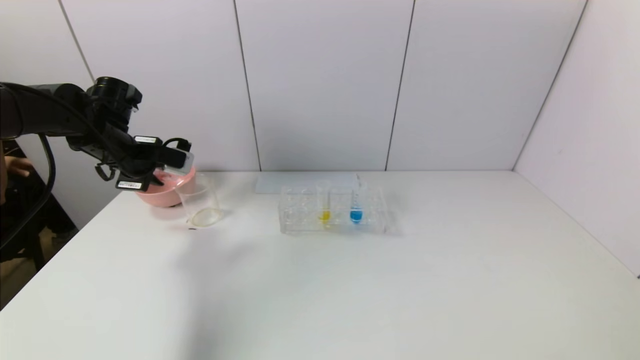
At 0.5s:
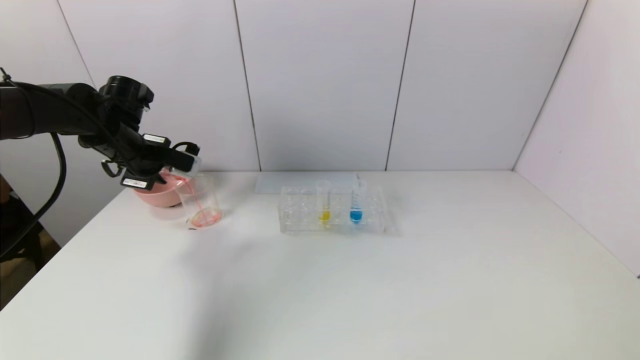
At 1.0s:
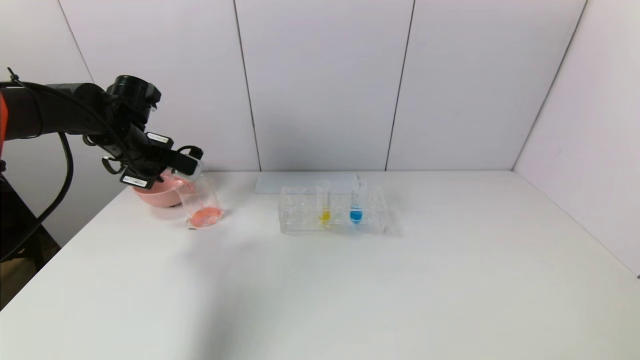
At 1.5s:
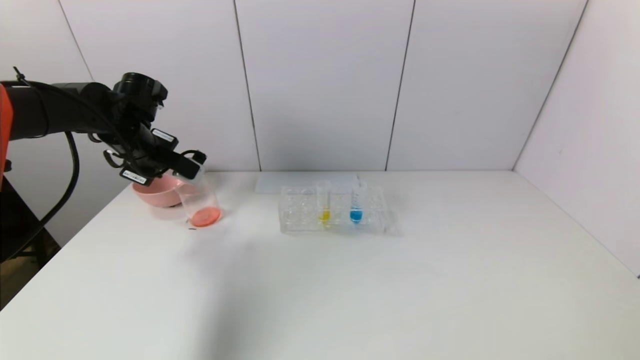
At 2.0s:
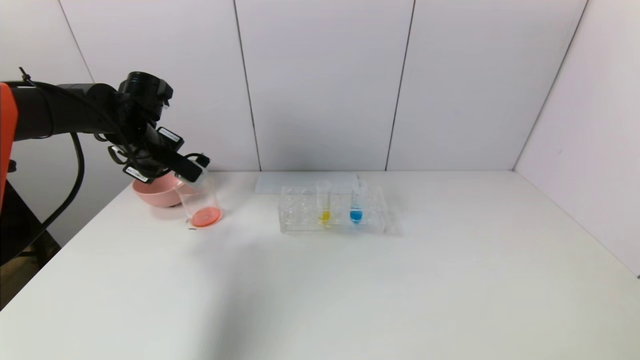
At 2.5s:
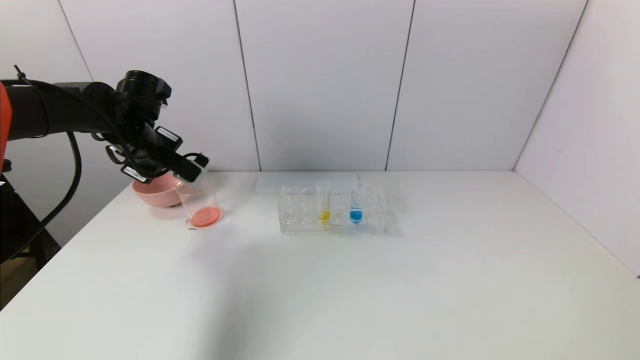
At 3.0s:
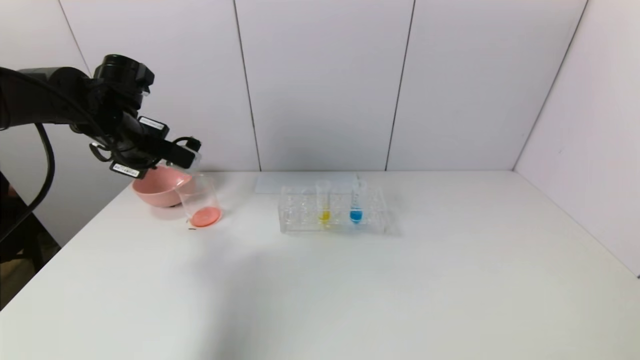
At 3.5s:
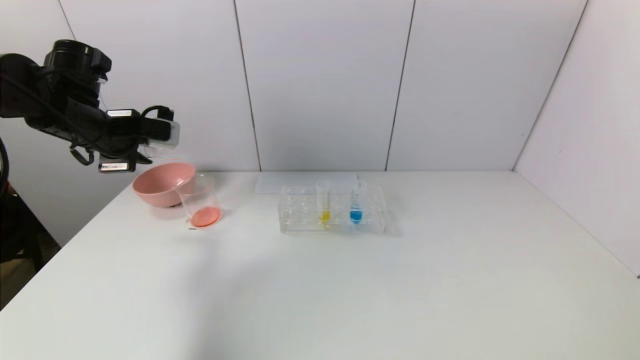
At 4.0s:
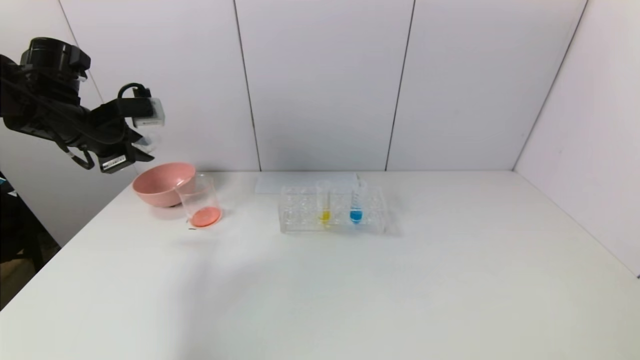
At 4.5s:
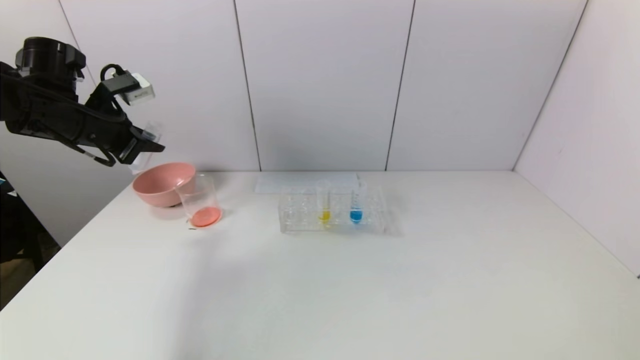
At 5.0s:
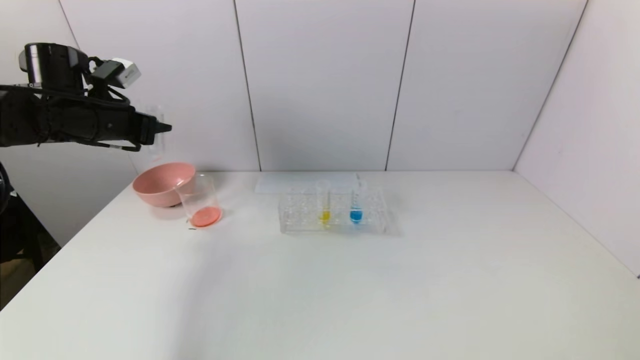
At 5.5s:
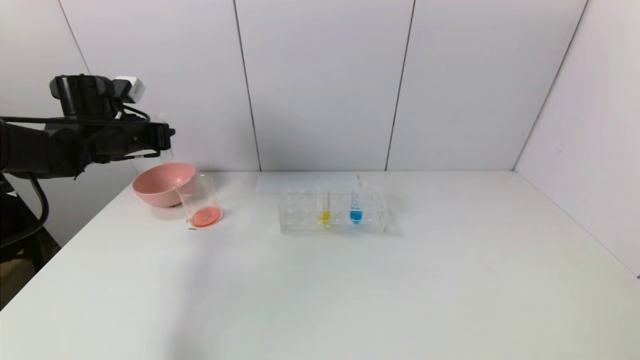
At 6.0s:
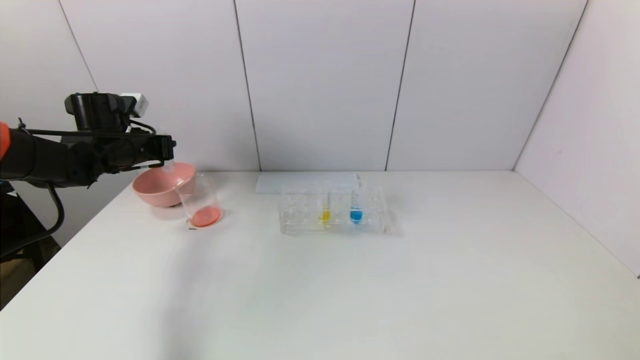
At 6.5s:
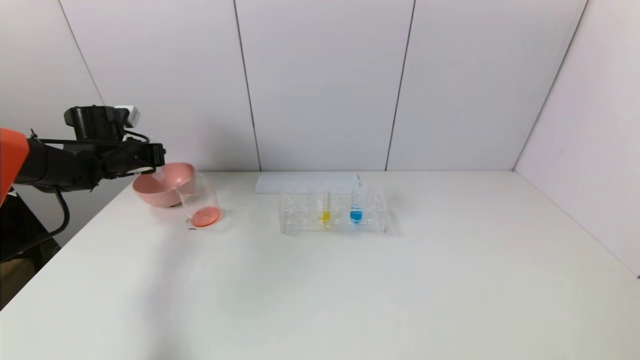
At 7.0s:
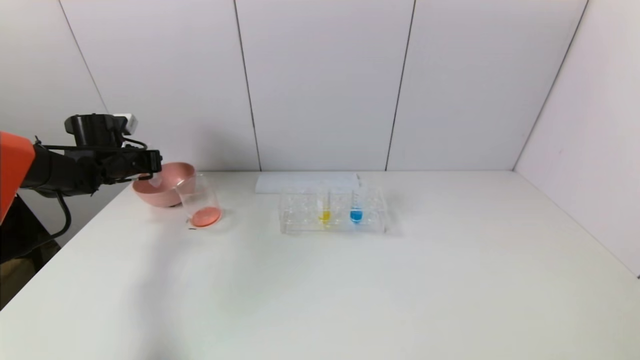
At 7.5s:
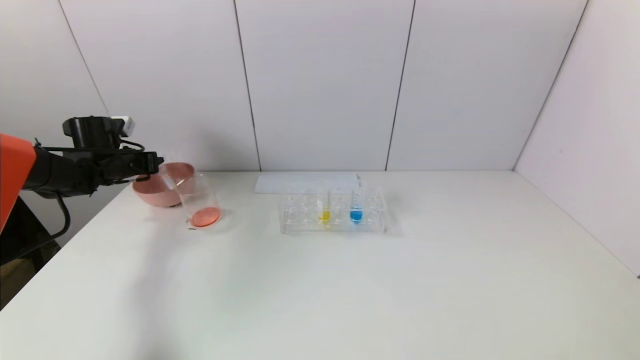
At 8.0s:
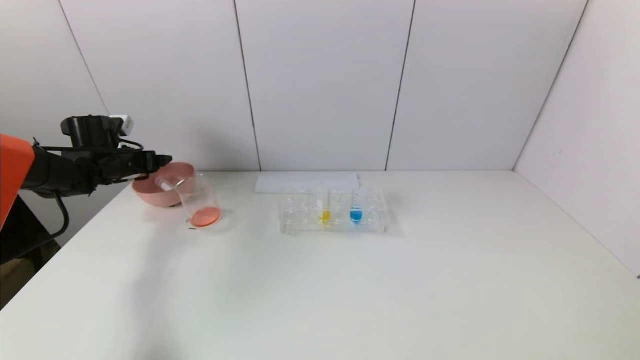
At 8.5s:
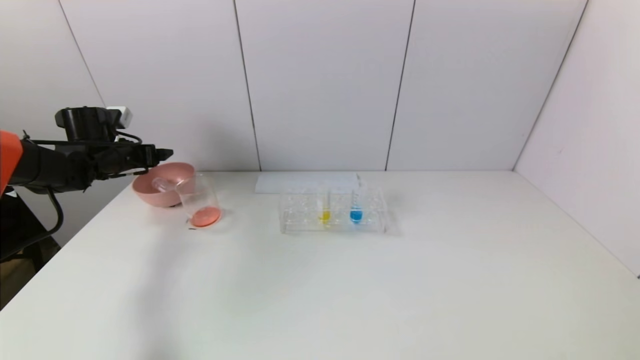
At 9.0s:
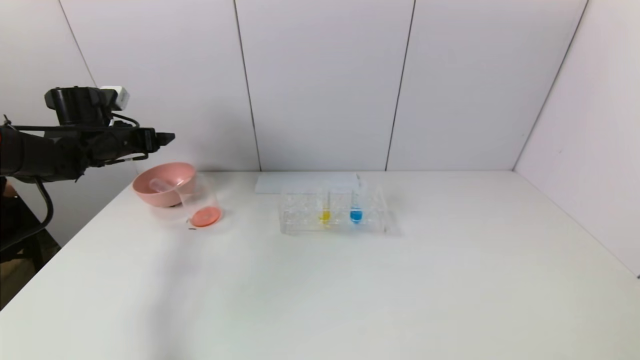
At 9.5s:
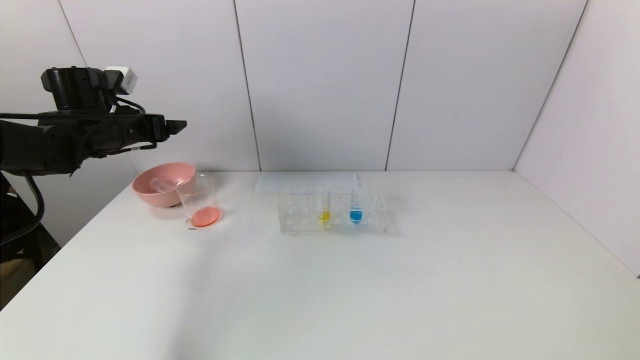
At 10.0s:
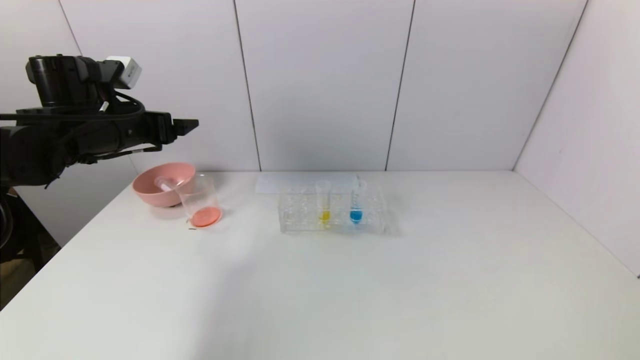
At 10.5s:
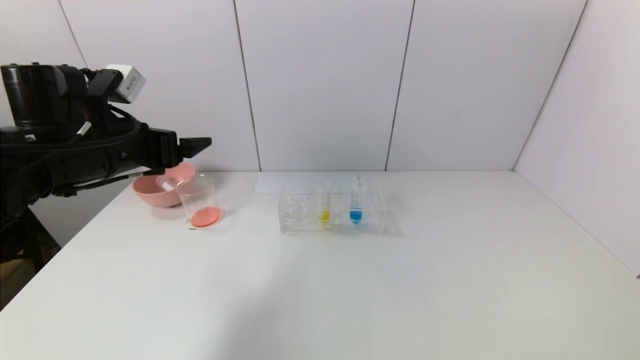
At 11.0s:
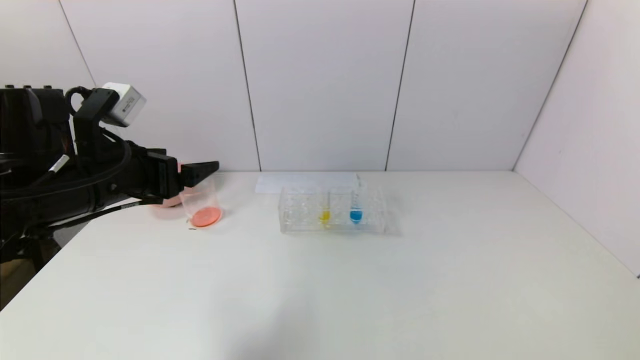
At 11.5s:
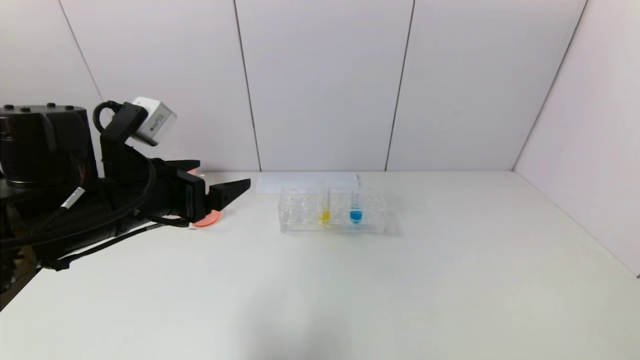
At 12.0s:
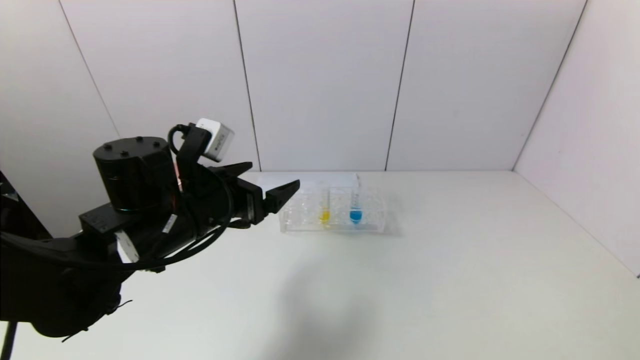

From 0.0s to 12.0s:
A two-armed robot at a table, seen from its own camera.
Task of the whole recording: pick up the test tube with yellow pigment and the test tube with red pigment by grippers and pour them into the beaker.
Step, from 2.0s to 7.5s: Place the test tube into the pink bowl with the left gripper.
From 2.0s to 4.0s: The left gripper shifts roughly 10 cm backward and to the left.
From 4.0s to 6.0s: The left gripper goes approximately 10 cm downward and forward.
From 6.0s to 8.0s: The left gripper goes roughly 5 cm to the left, and opens its fingers.
From 8.0s to 10.0s: The left gripper moves to the right, upward and backward, about 20 cm.
From 10.0s to 12.0s: The left gripper moves to the right, backward and downward, some 20 cm.

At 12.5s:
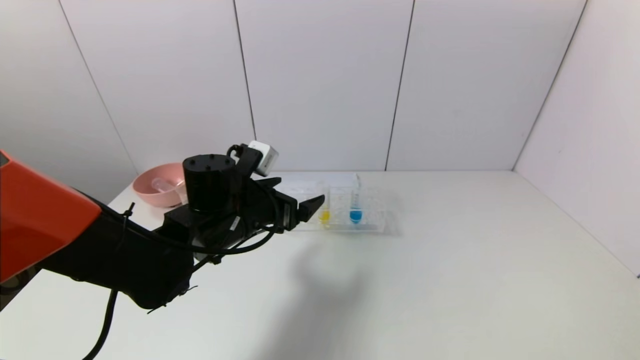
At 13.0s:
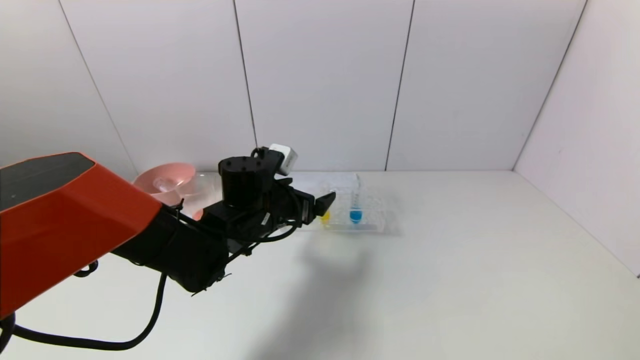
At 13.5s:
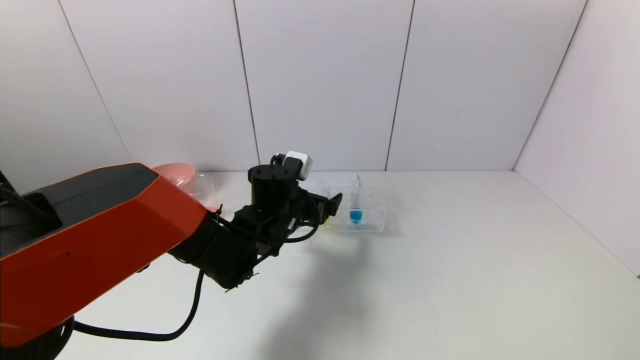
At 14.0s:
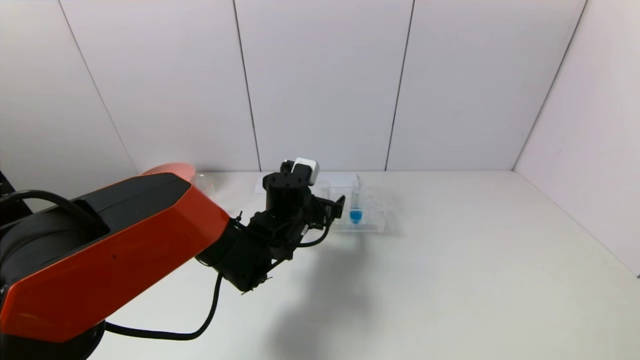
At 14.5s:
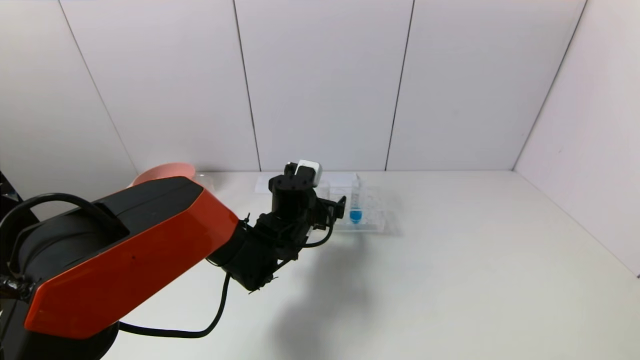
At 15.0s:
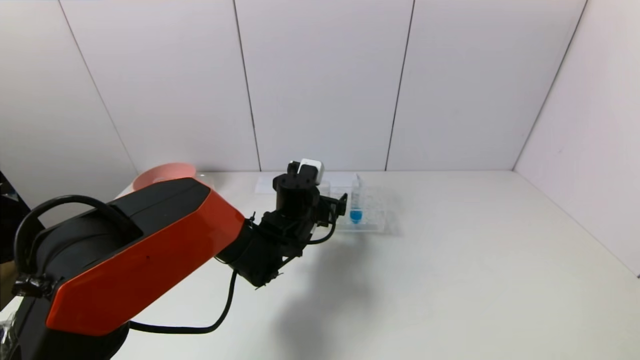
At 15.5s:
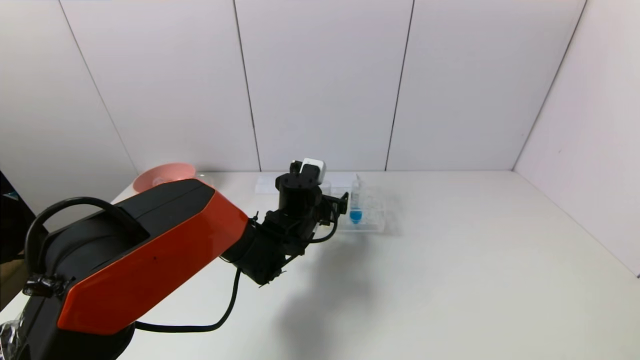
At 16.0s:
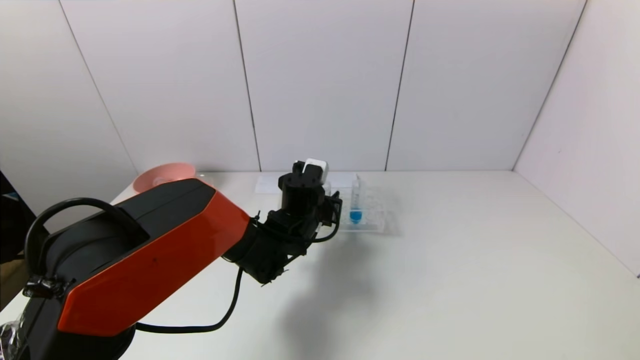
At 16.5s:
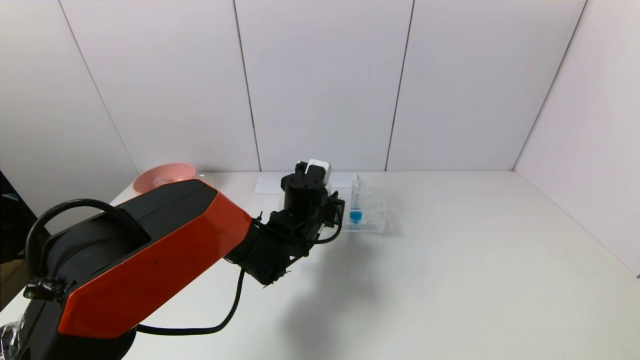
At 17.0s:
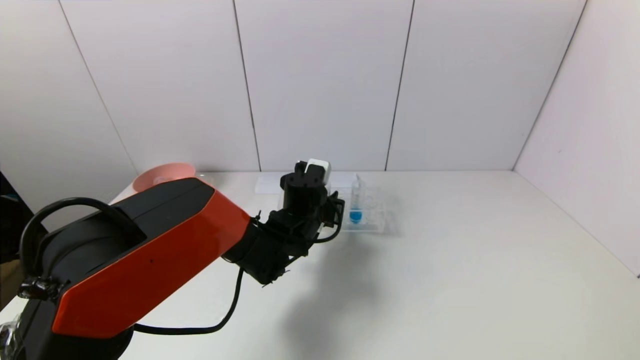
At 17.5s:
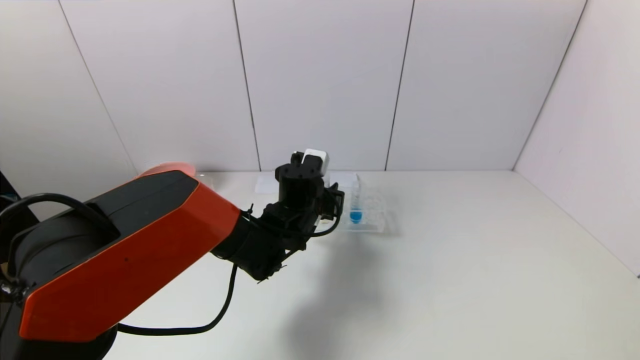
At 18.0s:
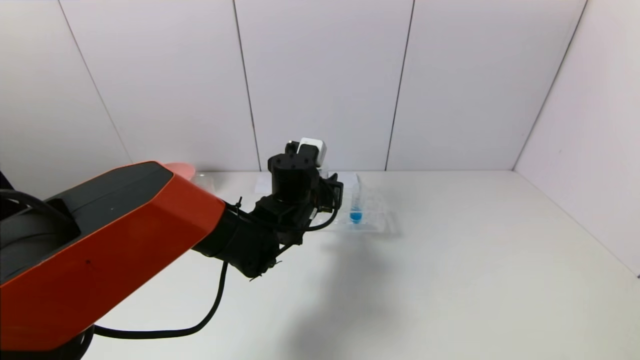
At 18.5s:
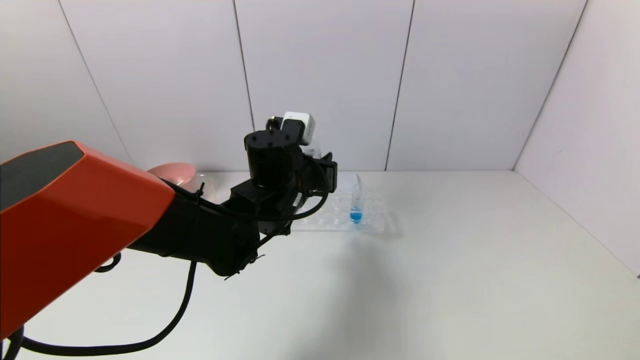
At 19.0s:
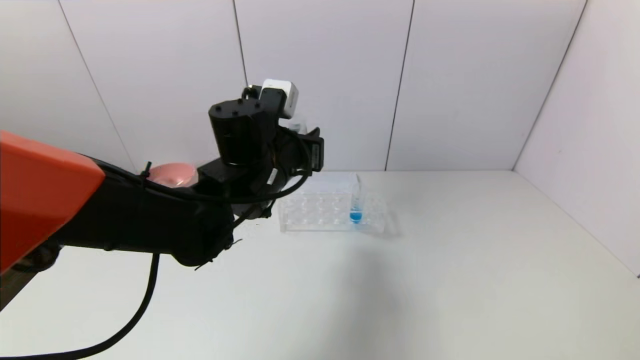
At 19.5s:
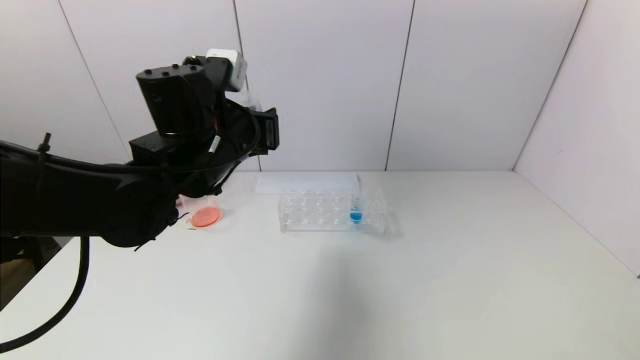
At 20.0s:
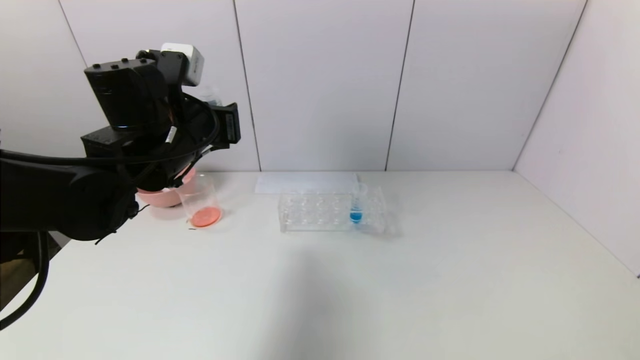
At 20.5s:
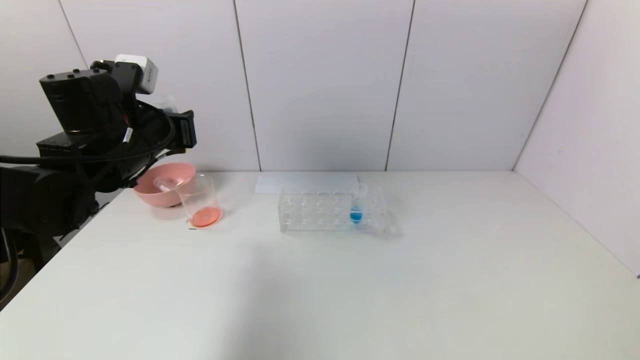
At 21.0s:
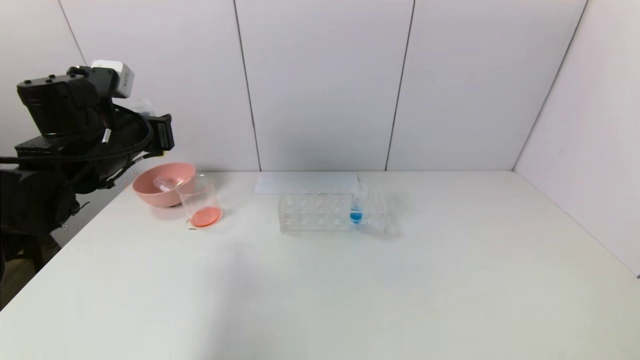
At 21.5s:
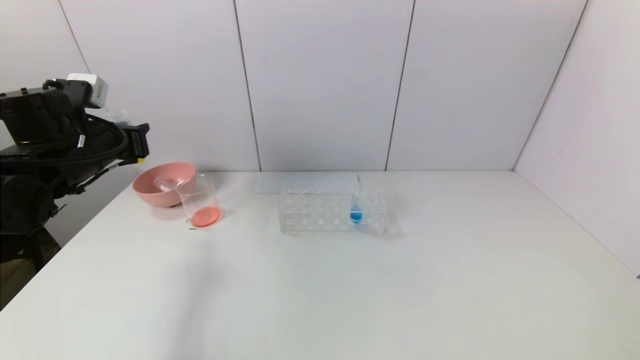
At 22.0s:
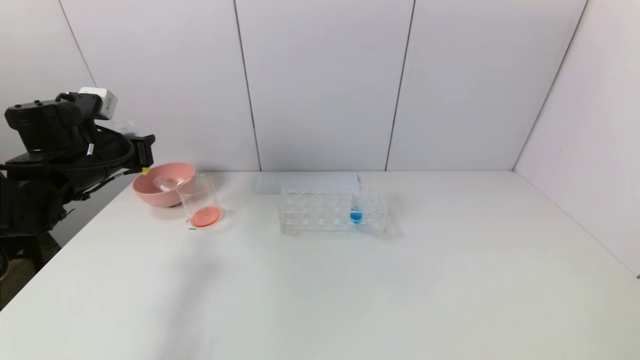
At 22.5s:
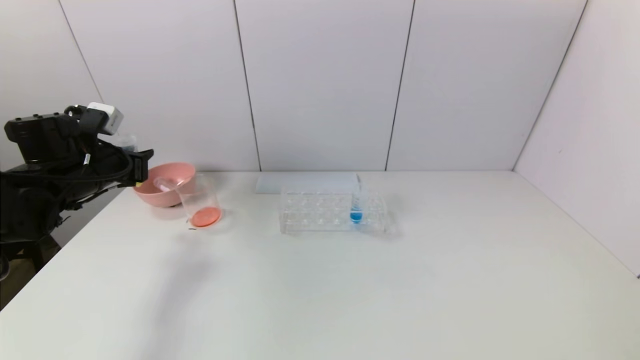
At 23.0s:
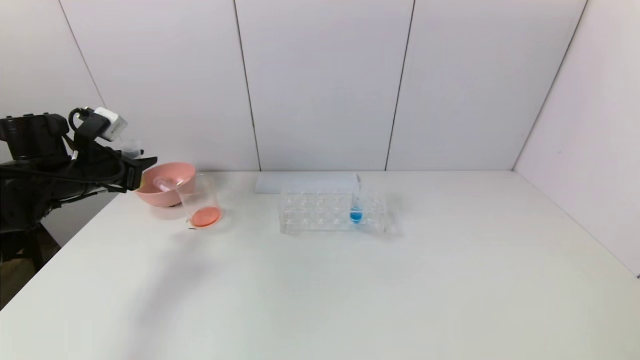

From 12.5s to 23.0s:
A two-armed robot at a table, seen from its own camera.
Task of the whole recording: pick up the test tube with yellow pigment and the test tube with red pigment by grippers and pour them into the beaker.
Step, from 12.5s to 16.0s: Grasp the yellow reagent with the left gripper.
From 12.5s to 14.5s: The left gripper goes approximately 10 cm to the right, downward and forward.
From 14.5s to 16.5s: The left gripper closes its fingers.
From 16.5s to 19.0s: The left gripper travels upward and backward by about 15 cm.
From 19.0s to 21.0s: The left gripper goes roughly 20 cm to the left.
From 21.0s to 23.0s: The left gripper goes some 10 cm to the left and downward.
